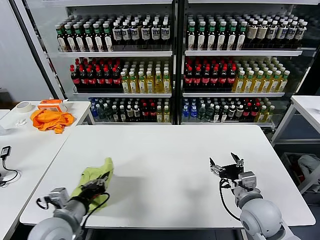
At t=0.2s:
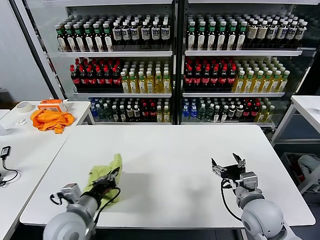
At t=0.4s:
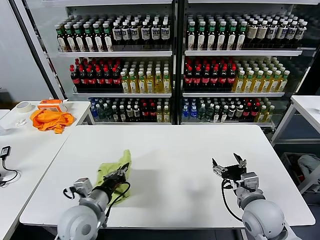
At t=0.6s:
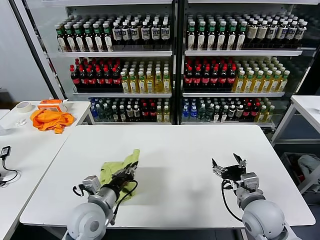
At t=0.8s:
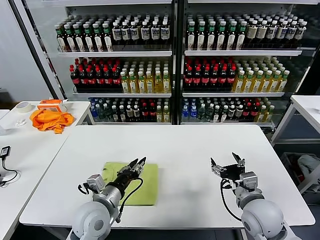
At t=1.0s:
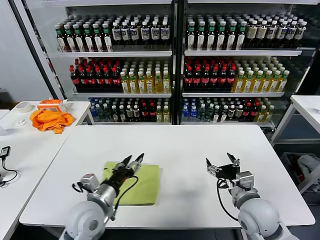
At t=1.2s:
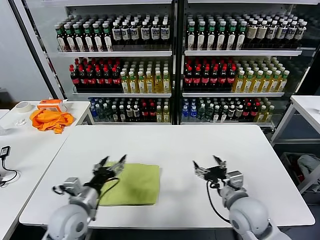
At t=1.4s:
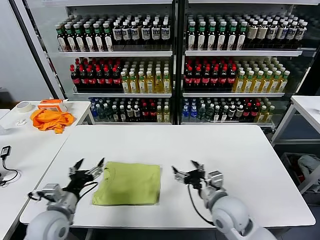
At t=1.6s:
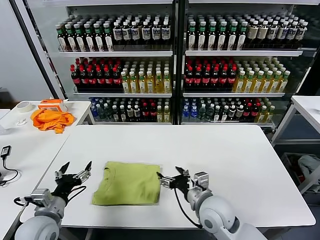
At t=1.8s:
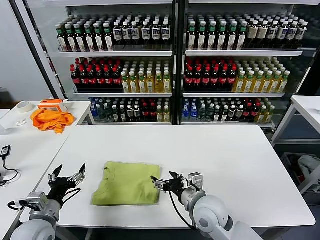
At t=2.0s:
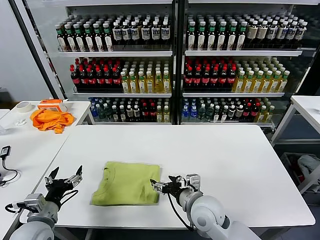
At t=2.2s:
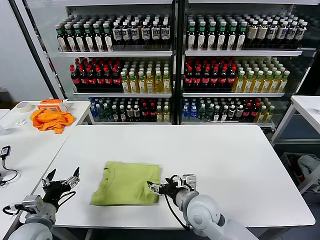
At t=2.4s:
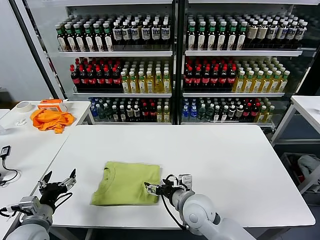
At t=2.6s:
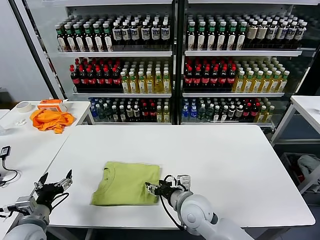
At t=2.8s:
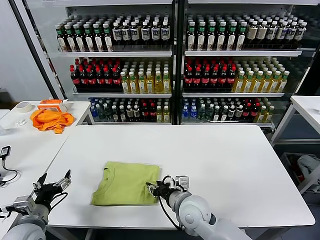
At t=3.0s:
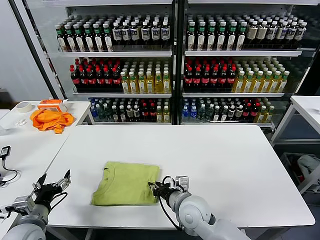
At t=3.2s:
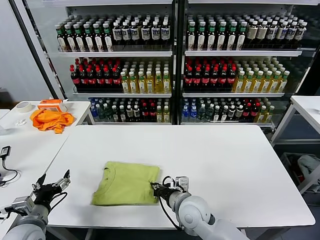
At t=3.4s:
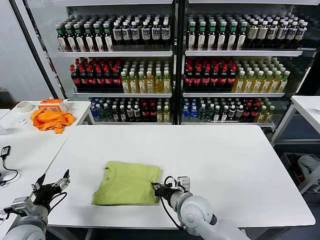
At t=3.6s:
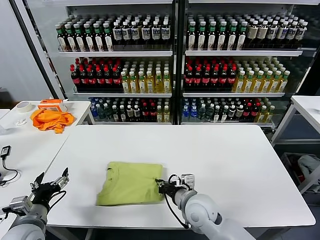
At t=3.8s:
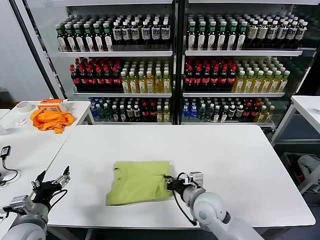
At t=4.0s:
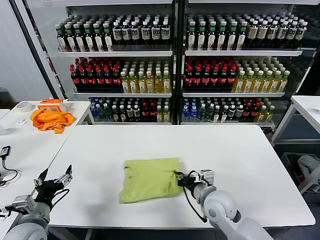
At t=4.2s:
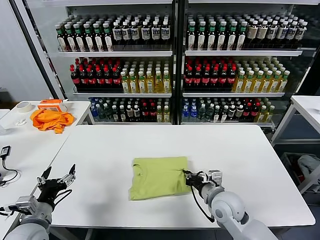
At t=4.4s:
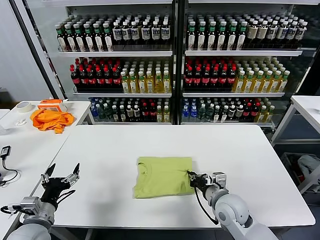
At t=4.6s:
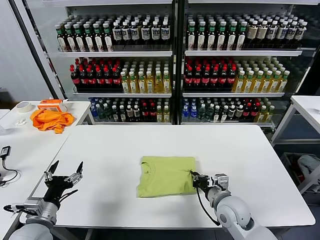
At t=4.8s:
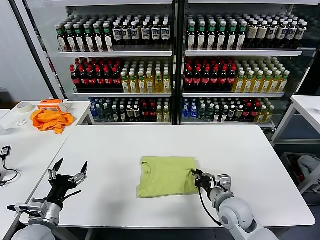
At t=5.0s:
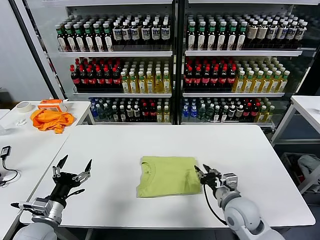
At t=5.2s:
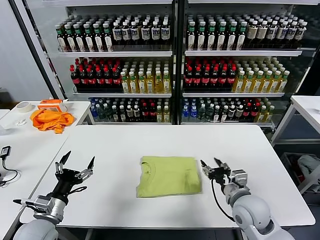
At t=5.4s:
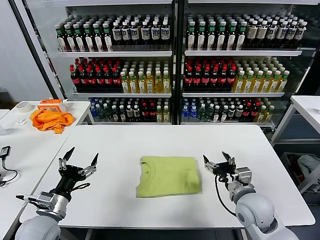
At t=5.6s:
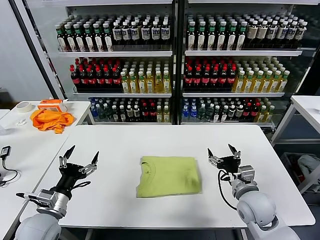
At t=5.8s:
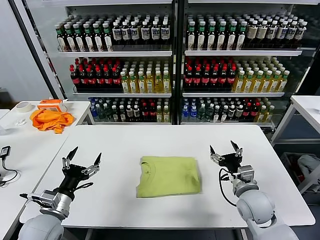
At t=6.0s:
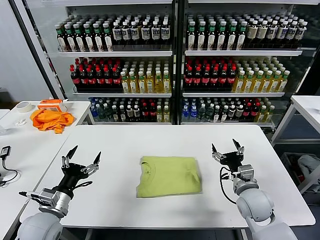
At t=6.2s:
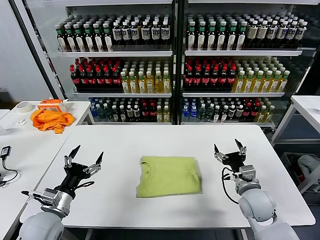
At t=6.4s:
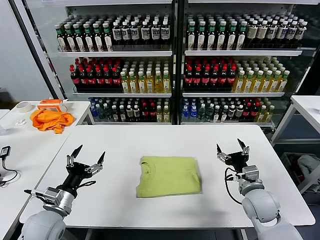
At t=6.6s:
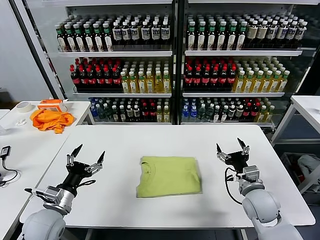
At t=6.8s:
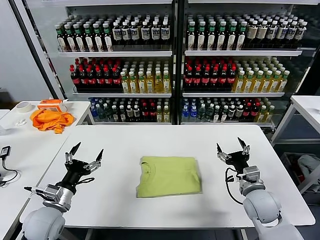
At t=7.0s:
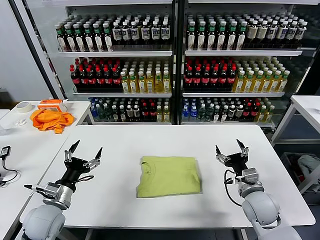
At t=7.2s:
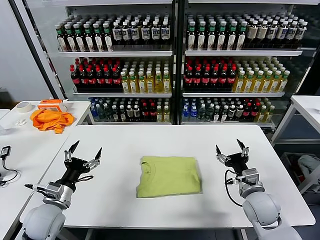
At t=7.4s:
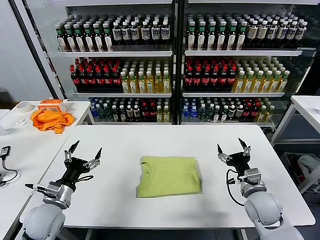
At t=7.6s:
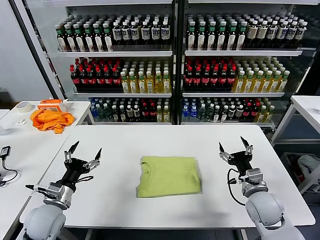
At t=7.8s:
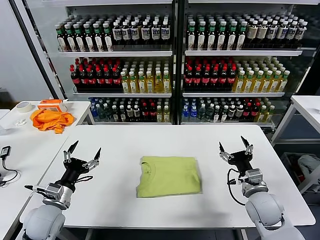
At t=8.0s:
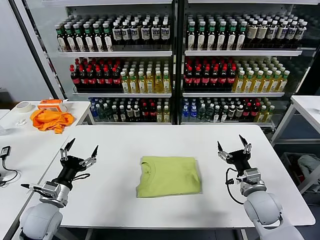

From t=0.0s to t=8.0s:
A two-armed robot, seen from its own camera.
Task of the whole recording: fold and organize the clothes.
Step, from t=1.0s to t=4.8s: Drag the clothes to the center of the table.
From t=0.0s to t=1.6s: The left gripper opens up; the right gripper moves to the left, roughly 10 cm.
From t=1.6s to t=3.2s: The right gripper shifts some 5 cm to the left, and closes its fingers.
From t=3.2s to t=4.8s: The right gripper moves to the right, about 10 cm.
From t=4.8s to t=6.4s: The right gripper shifts approximately 10 cm to the right, and opens up.
From t=6.4s to t=8.0s: There are only small adjustments of the grippers.
